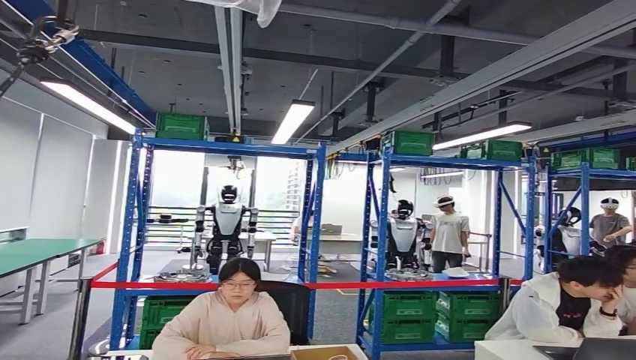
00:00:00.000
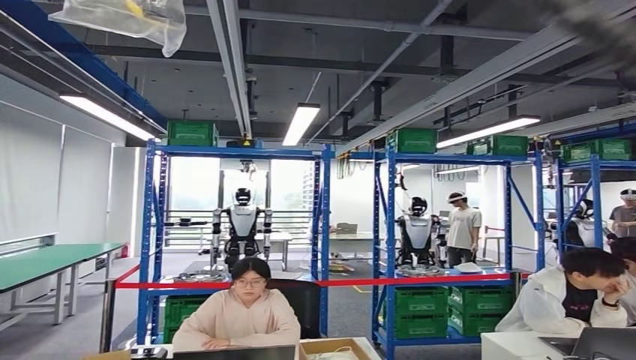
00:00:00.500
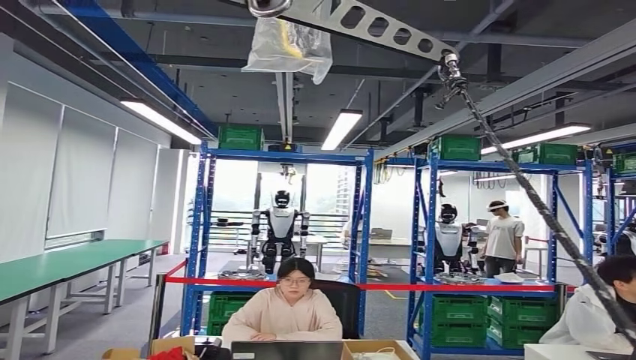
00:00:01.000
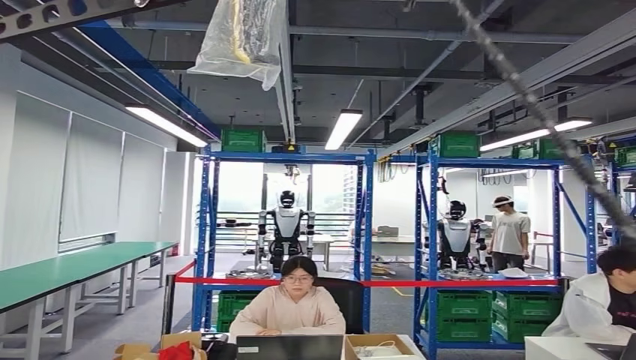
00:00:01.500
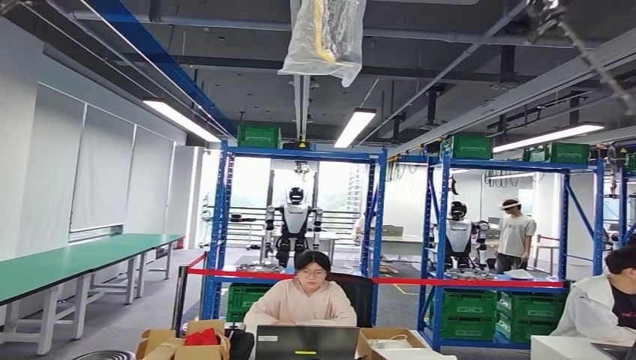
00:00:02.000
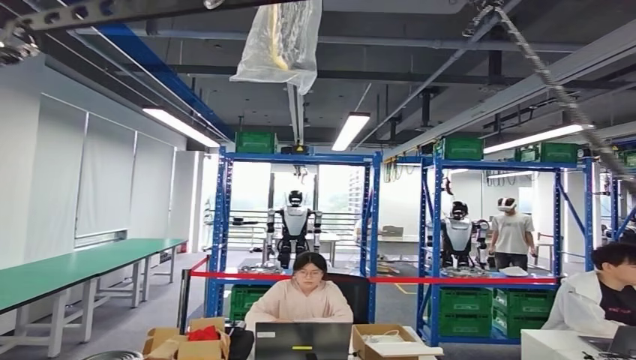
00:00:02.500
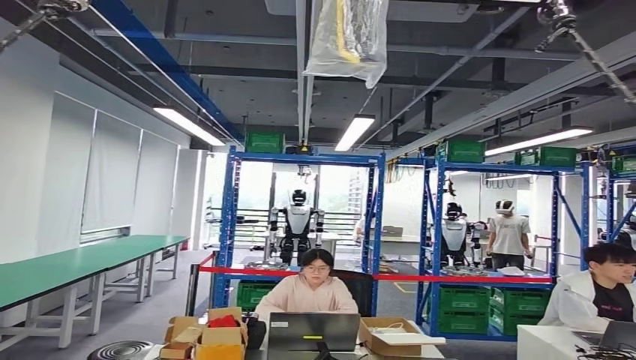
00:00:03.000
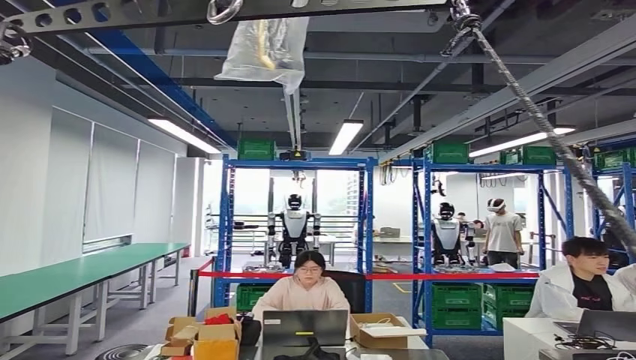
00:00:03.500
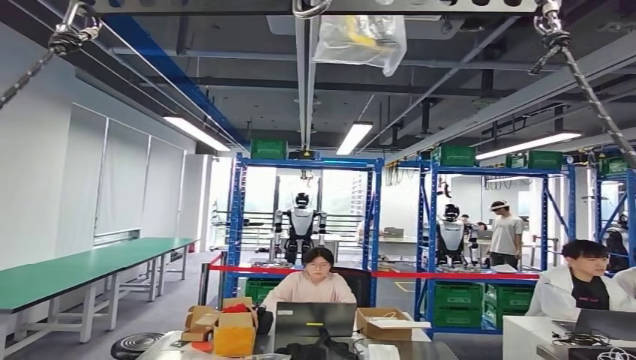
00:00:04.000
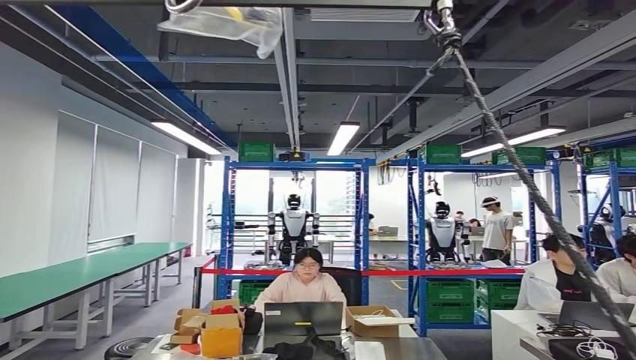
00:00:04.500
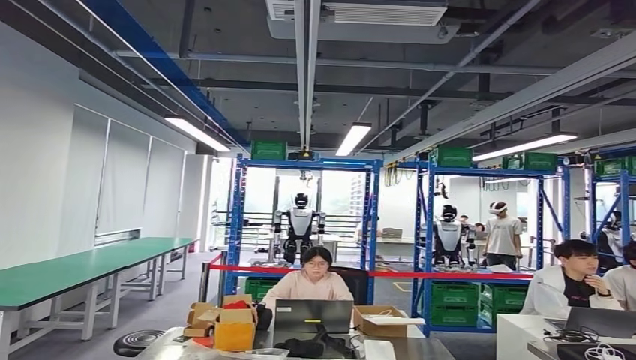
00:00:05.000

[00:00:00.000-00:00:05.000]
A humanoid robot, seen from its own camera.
Step, 00:00:00.500 to 00:00:05.000: Return to the initial position at the workbench.
